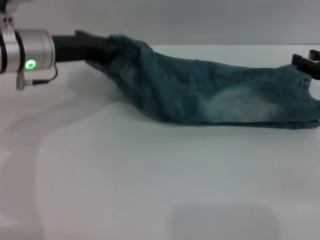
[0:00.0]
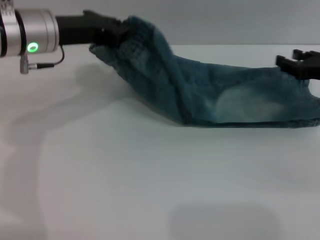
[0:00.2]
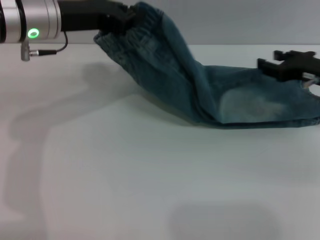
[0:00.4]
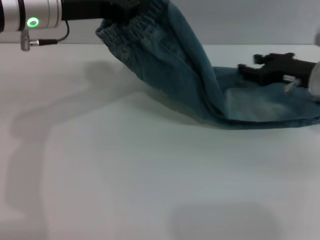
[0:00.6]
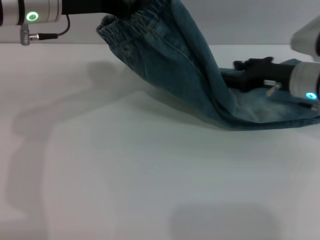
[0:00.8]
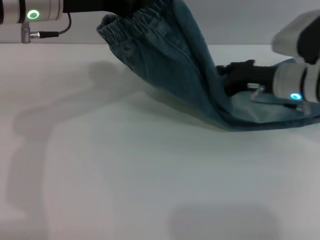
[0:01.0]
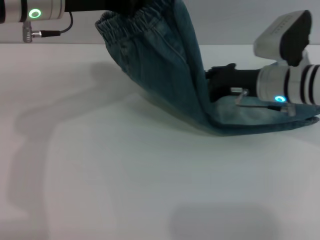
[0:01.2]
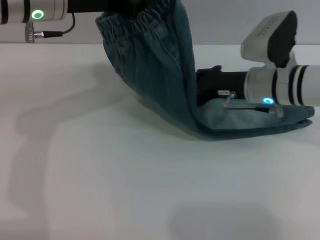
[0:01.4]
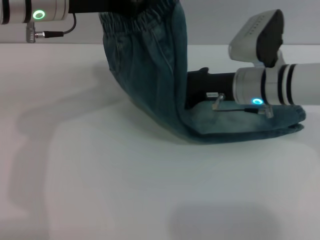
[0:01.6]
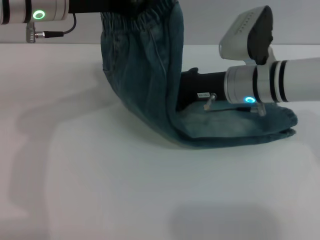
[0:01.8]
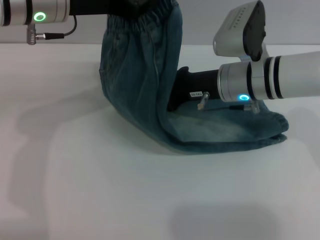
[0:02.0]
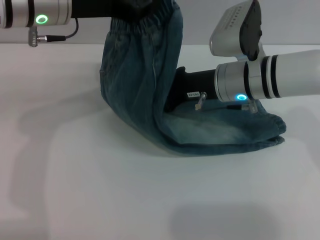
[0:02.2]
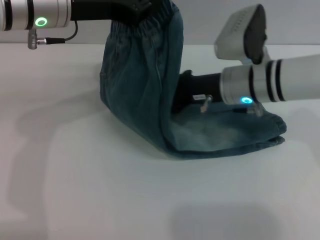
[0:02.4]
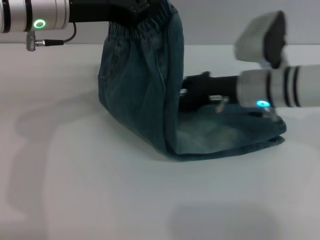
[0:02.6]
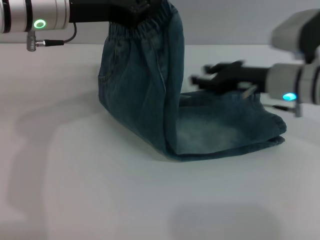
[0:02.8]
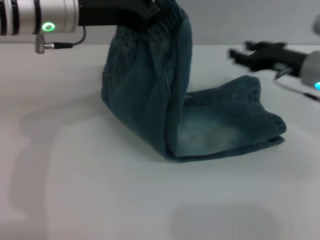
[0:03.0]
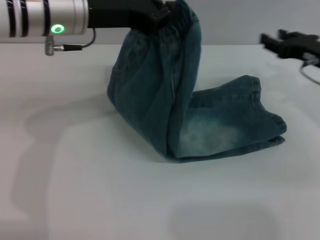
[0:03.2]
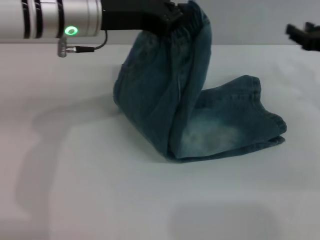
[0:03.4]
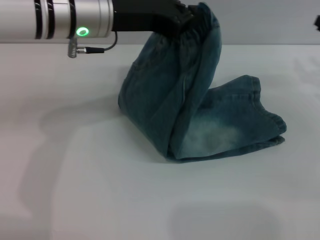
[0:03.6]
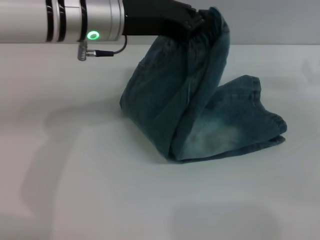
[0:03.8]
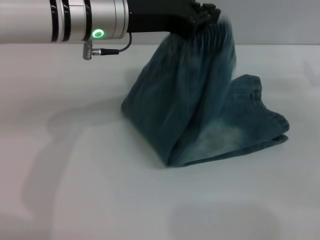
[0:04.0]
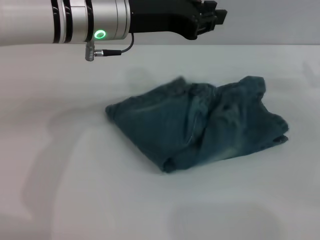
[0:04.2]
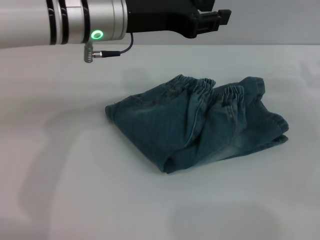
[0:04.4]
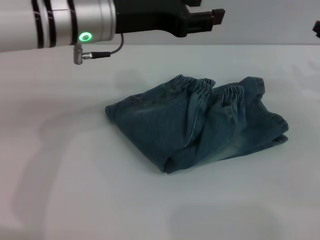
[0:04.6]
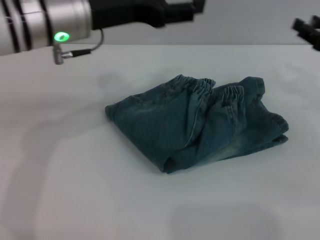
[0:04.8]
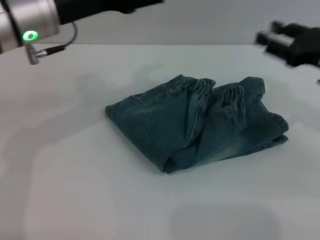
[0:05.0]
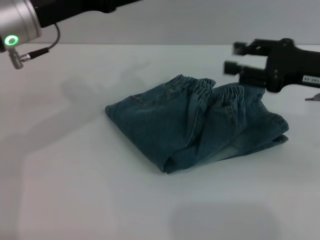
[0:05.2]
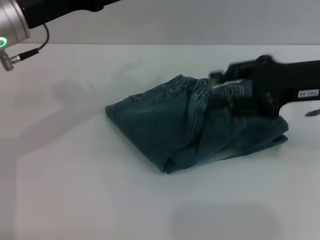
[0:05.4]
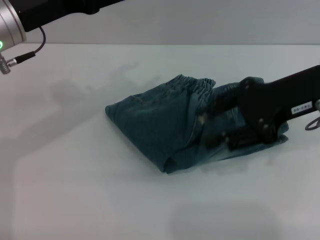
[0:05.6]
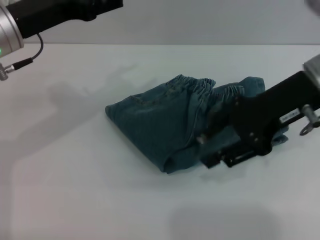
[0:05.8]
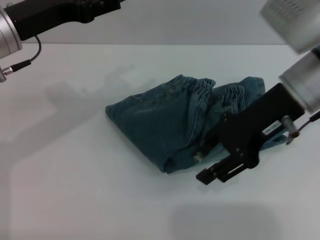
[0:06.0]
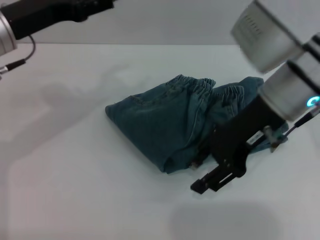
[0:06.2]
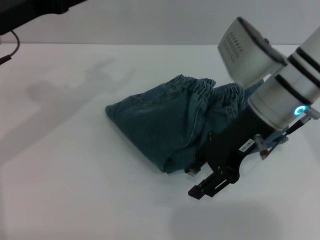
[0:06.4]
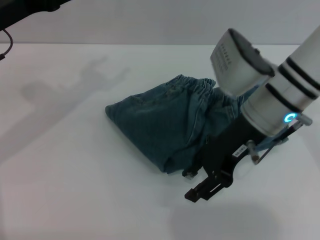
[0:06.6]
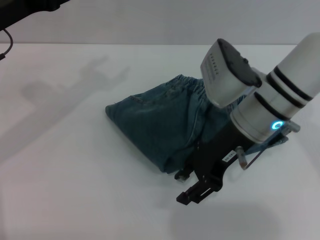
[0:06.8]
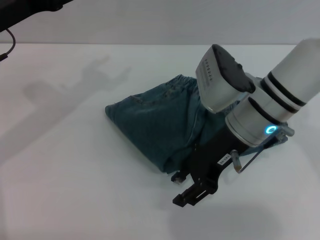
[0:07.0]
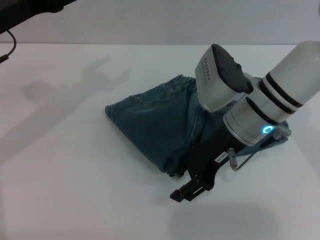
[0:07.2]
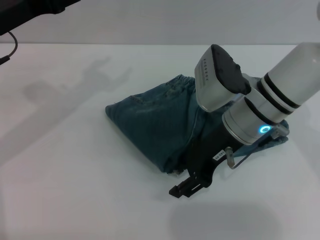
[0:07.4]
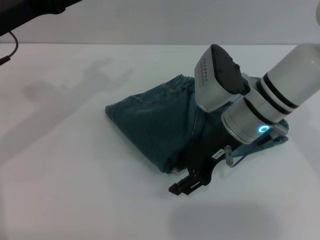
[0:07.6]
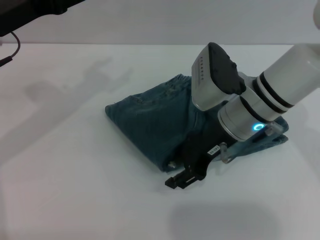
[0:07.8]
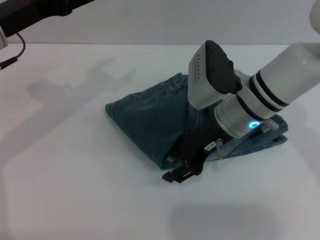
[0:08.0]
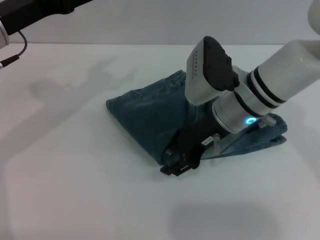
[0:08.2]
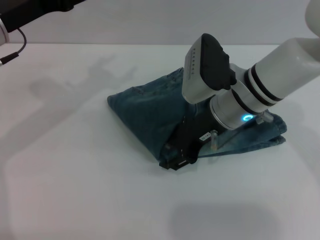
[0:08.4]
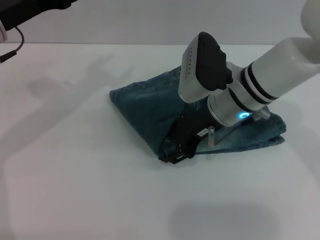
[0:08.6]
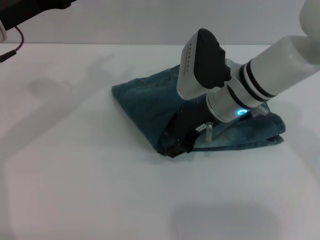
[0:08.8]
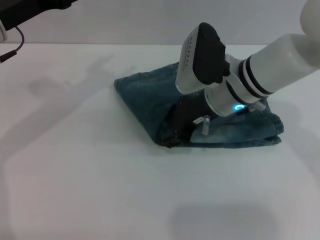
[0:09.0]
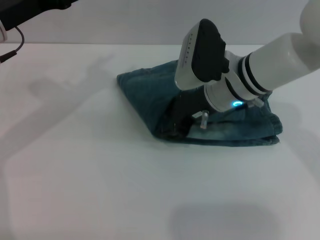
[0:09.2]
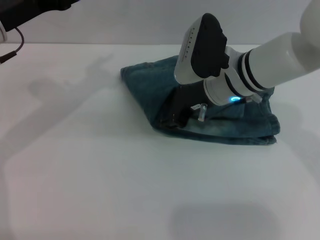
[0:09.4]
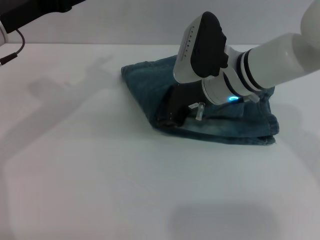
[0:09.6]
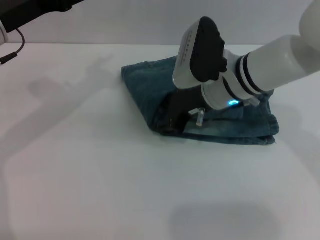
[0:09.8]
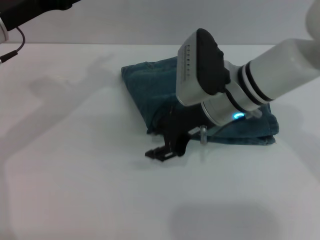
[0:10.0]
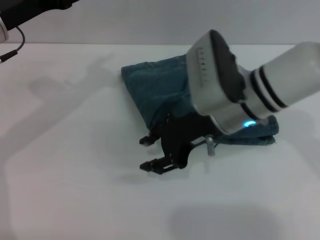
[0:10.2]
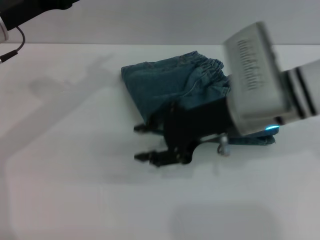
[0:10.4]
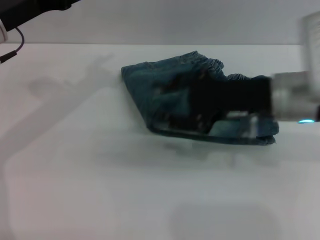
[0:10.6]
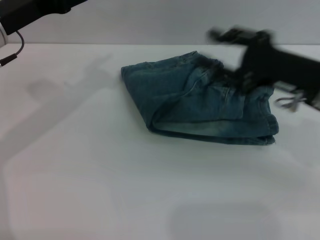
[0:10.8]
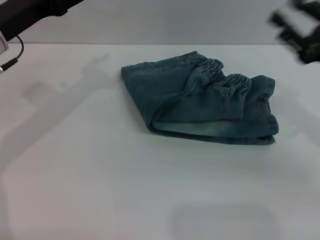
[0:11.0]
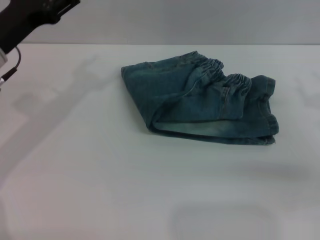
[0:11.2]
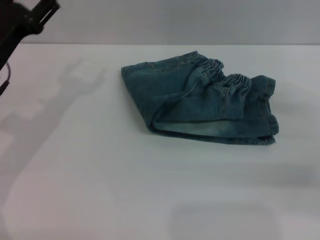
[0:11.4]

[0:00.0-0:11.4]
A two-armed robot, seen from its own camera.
Step, 0:00.0 to 0:04.2: Fold the pants from left to right with the left gripper.
Step, 0:04.6 to 0:10.0: Place the folded trousers onto the center area with the right grippers.
0:00.0 to 0:01.4: The left gripper travels upward by roughly 10 cm, while the right gripper moves to the left, some 15 cm.
0:02.8 to 0:04.2: The right gripper heads to the right, covering approximately 15 cm; the left gripper shifts some 5 cm to the right.
0:04.2 to 0:05.6: The left gripper shifts roughly 10 cm to the left, and opens its fingers, while the right gripper heads to the left and upward, covering roughly 15 cm.
0:05.6 to 0:07.2: The right gripper heads to the left and downward, covering about 15 cm.
0:07.2 to 0:08.6: The grippers move only a little.
0:08.6 to 0:10.0: The grippers move only a little.
0:10.0 to 0:11.4: The right gripper shifts some 25 cm to the right; the left gripper shifts some 10 cm downward.

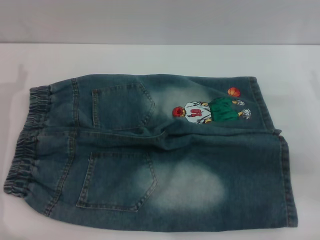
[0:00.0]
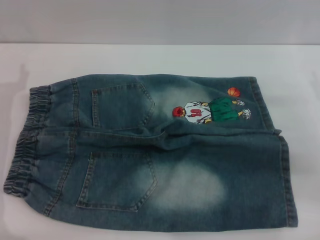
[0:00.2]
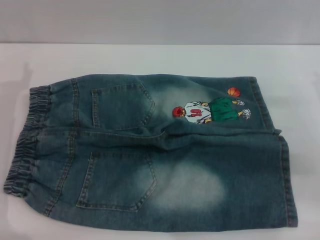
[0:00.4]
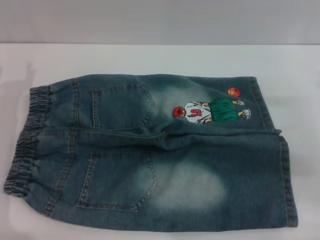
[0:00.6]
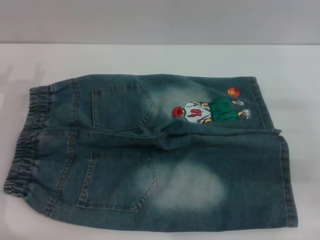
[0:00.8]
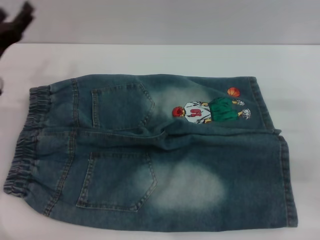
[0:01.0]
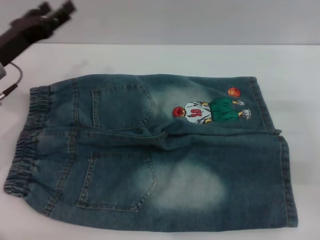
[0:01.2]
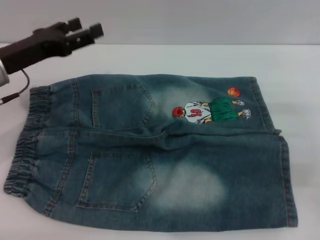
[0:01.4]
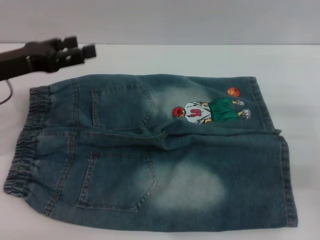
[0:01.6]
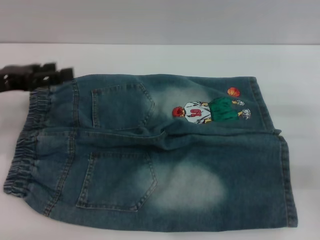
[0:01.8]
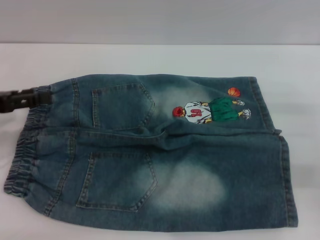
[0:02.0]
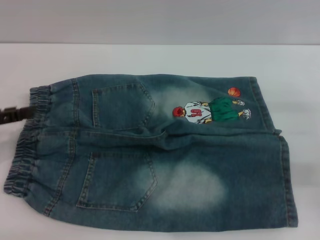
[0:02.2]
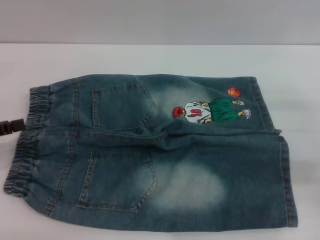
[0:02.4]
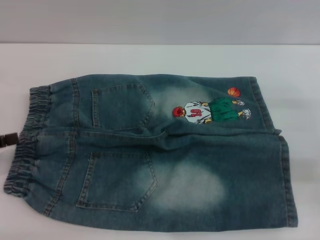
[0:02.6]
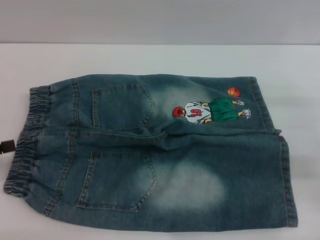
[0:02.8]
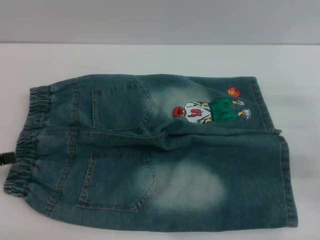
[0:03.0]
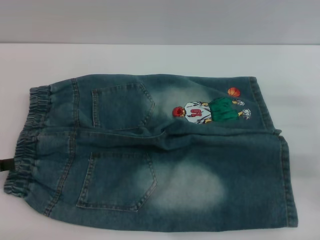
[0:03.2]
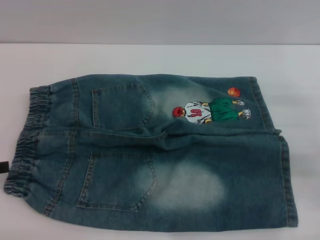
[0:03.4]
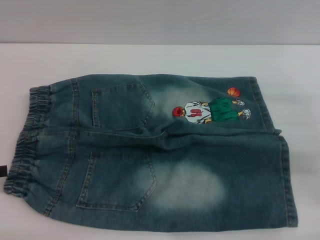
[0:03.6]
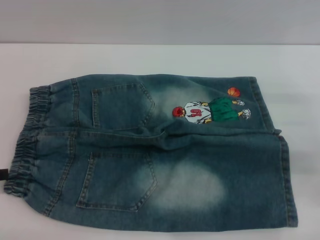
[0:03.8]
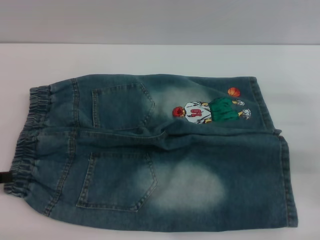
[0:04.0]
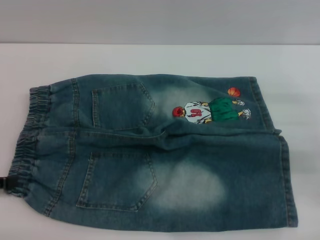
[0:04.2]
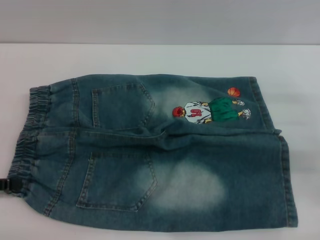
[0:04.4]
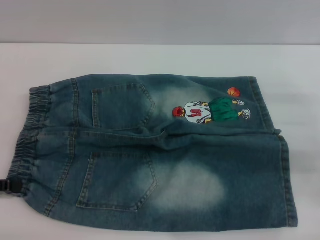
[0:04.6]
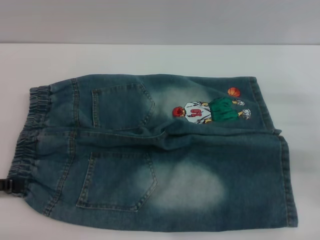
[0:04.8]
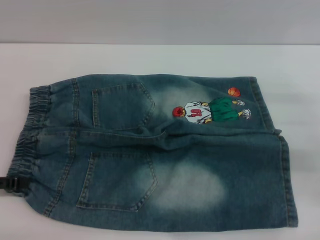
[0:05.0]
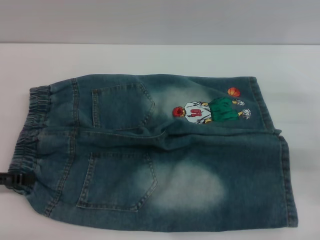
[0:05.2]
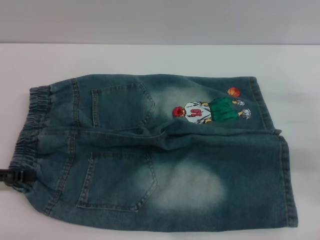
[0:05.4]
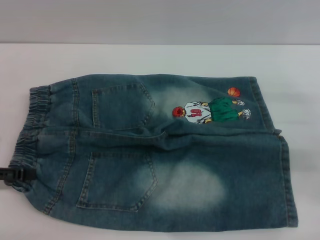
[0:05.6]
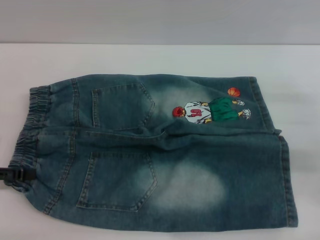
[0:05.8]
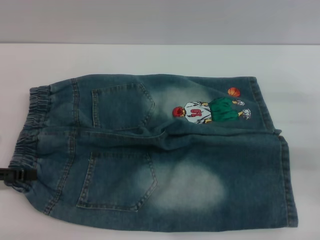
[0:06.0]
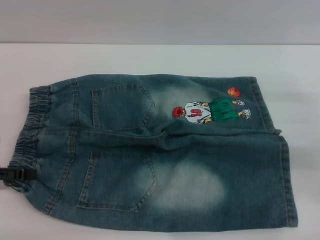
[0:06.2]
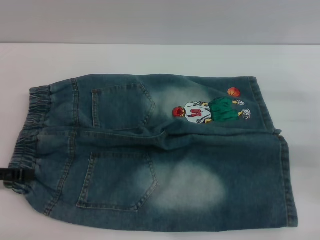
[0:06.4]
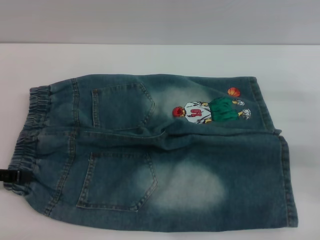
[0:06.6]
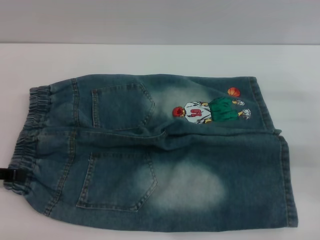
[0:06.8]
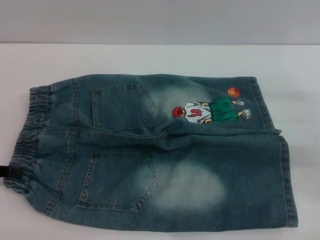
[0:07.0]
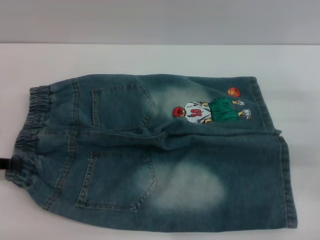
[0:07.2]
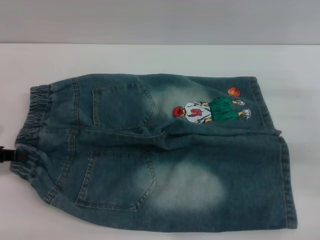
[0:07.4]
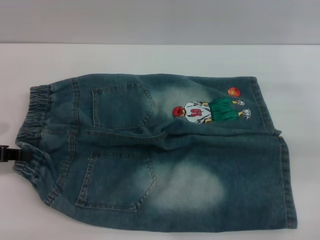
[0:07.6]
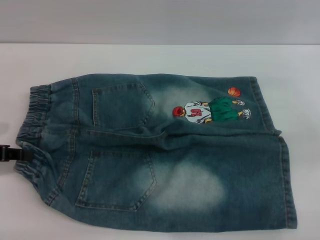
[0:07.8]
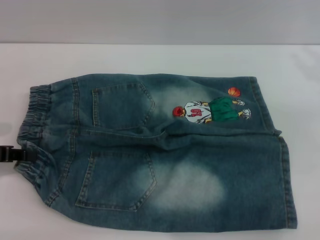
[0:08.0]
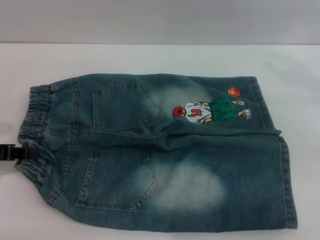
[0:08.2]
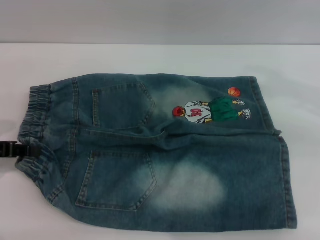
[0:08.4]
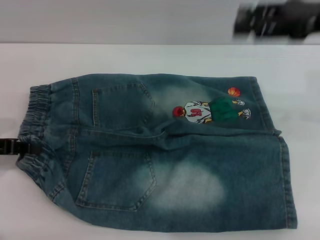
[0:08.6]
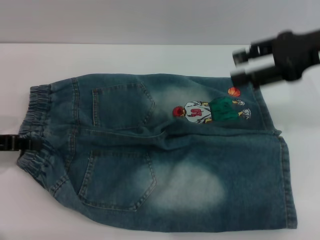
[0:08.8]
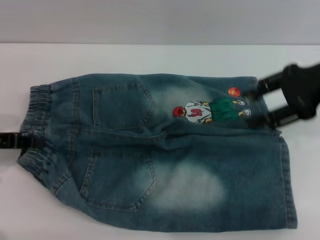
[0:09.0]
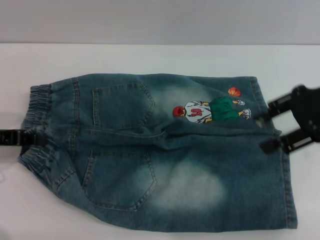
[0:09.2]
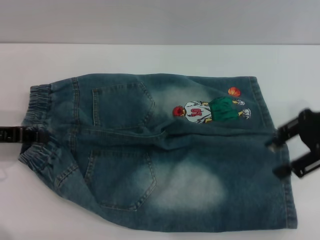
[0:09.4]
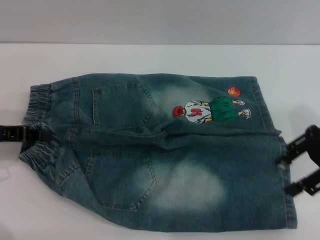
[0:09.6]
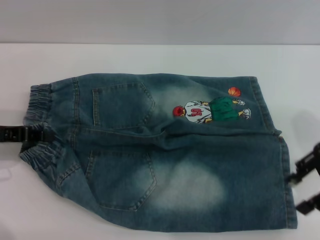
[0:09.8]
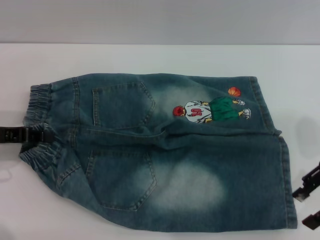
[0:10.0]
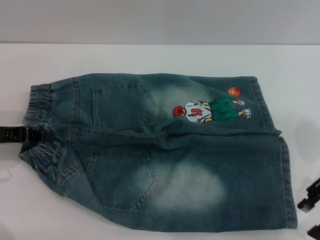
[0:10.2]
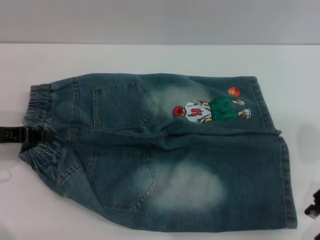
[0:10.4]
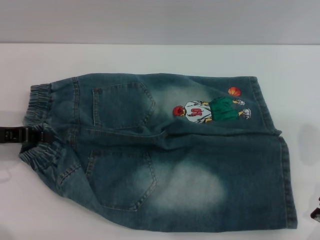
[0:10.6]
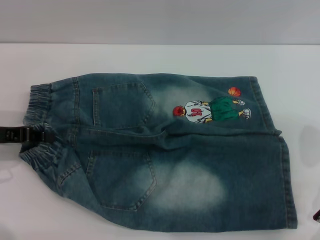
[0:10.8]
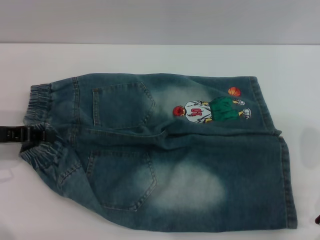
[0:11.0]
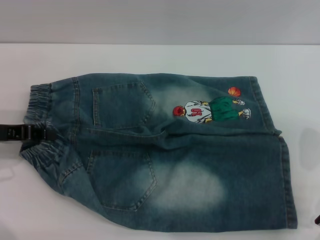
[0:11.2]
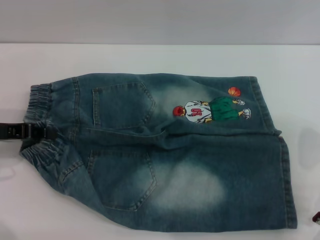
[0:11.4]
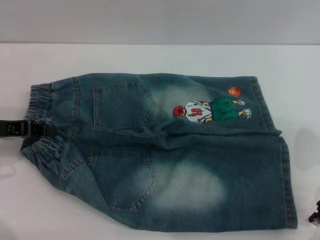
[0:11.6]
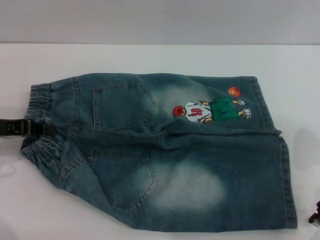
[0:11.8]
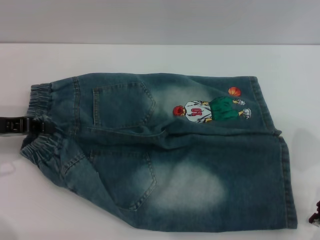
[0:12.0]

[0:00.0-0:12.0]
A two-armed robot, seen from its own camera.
0:00.0 to 0:01.6: The left gripper moves upward, about 10 cm.
0:01.6 to 0:03.0: The left gripper travels backward and to the left by roughly 15 cm.
0:04.4 to 0:06.0: The grippers stay close to where they were, moving slightly.
0:06.0 to 0:07.6: The left gripper closes.
0:07.6 to 0:09.0: The right gripper shifts some 15 cm upward and to the left.
0:09.0 to 0:10.4: The right gripper shifts some 5 cm downward.
0:10.4 to 0:12.0: The grippers stay close to where they were, moving slightly.
